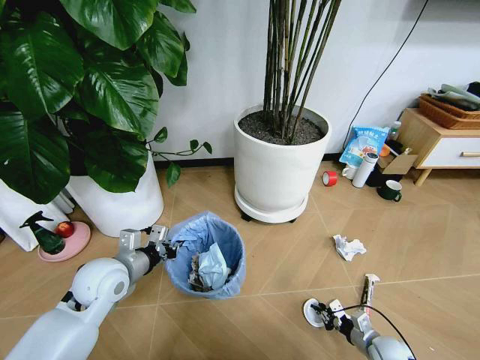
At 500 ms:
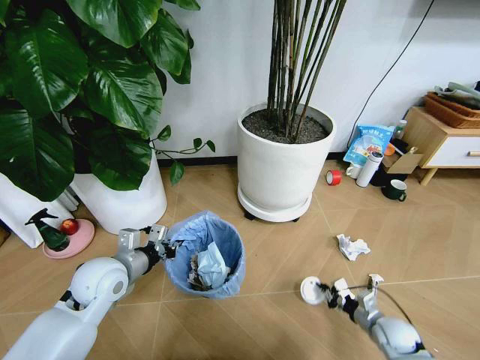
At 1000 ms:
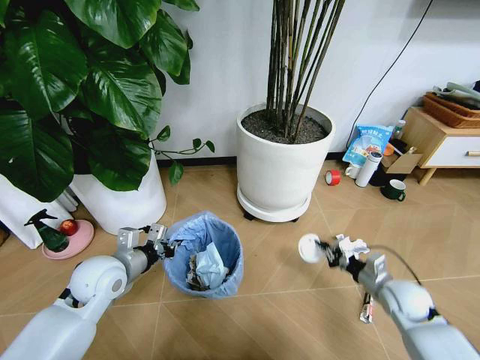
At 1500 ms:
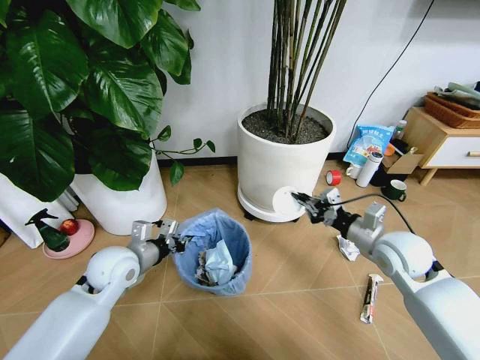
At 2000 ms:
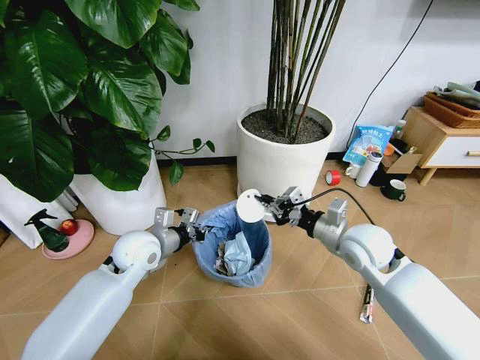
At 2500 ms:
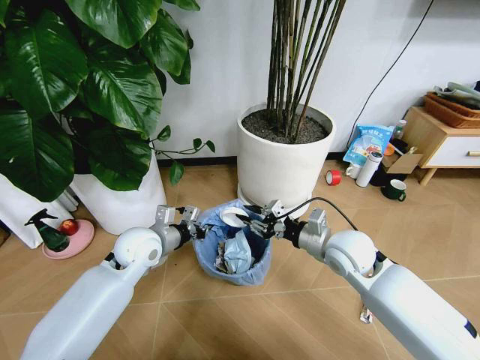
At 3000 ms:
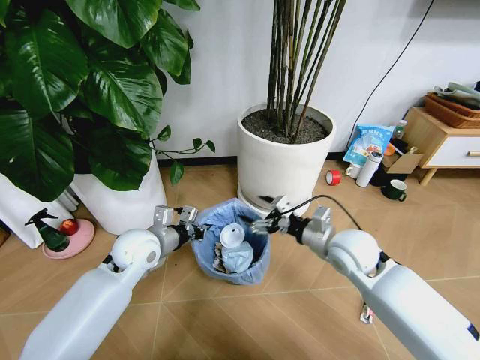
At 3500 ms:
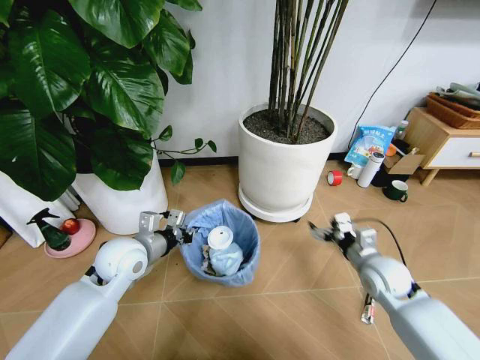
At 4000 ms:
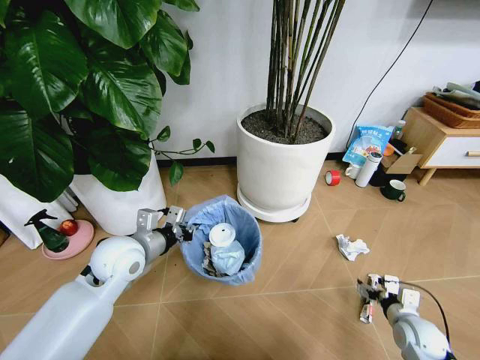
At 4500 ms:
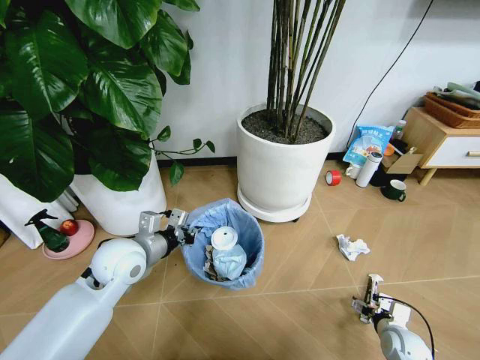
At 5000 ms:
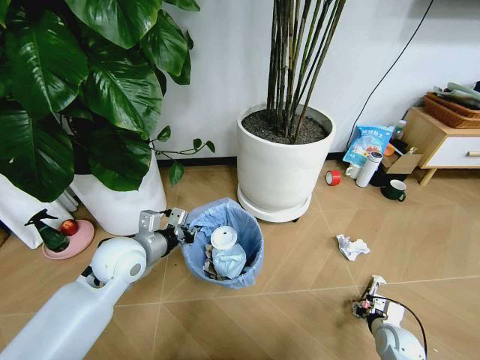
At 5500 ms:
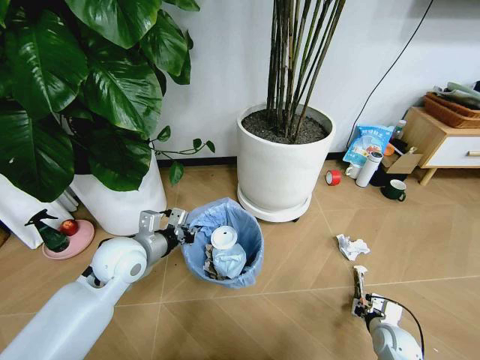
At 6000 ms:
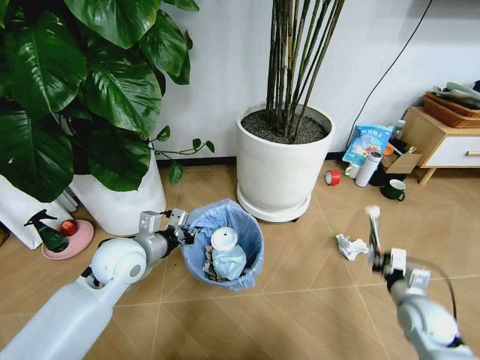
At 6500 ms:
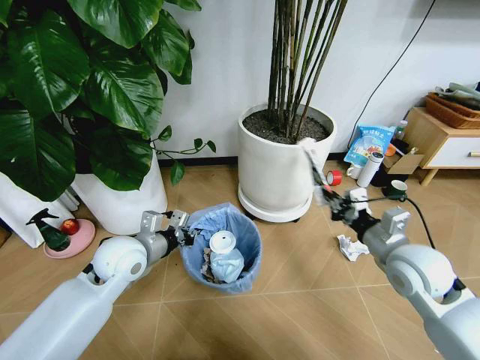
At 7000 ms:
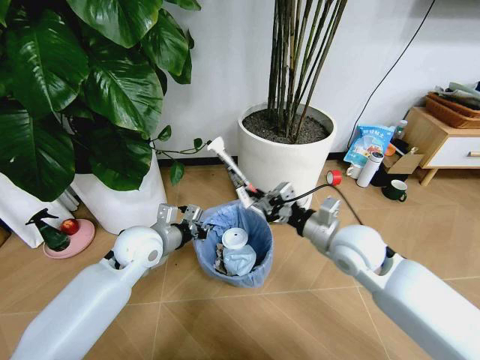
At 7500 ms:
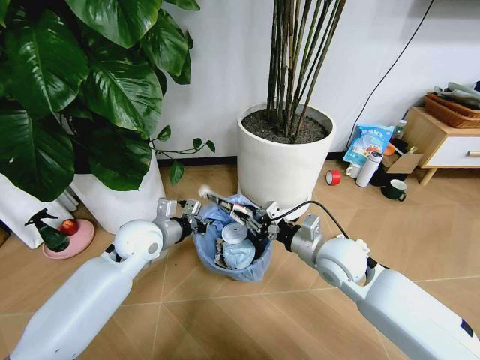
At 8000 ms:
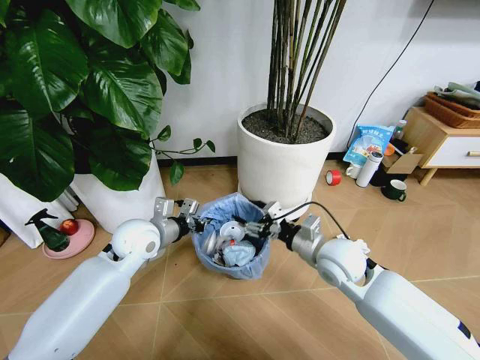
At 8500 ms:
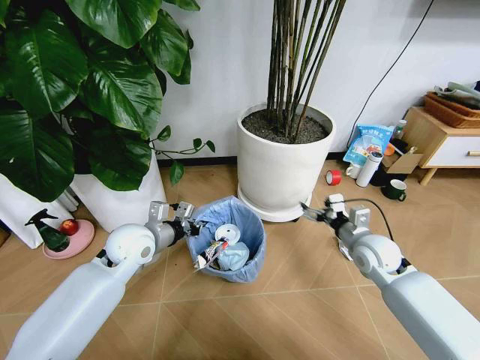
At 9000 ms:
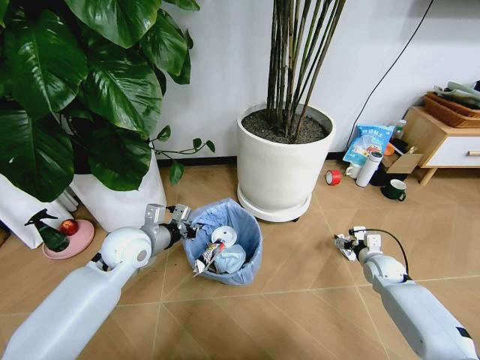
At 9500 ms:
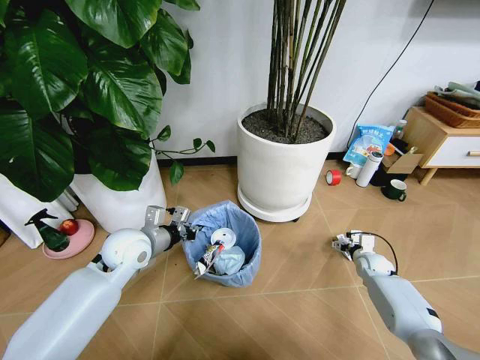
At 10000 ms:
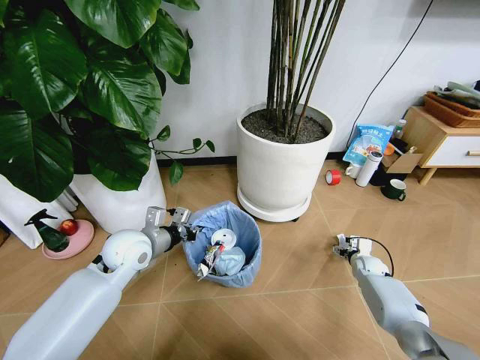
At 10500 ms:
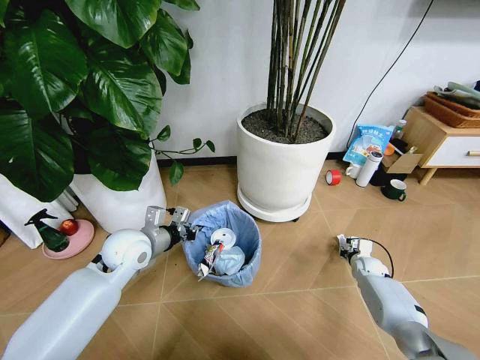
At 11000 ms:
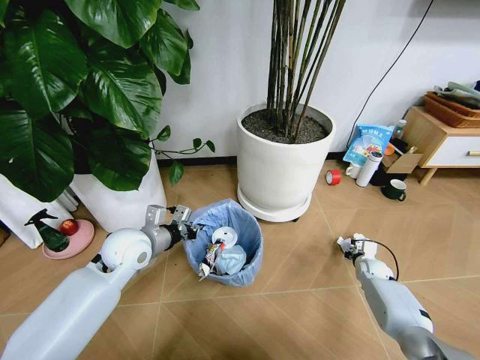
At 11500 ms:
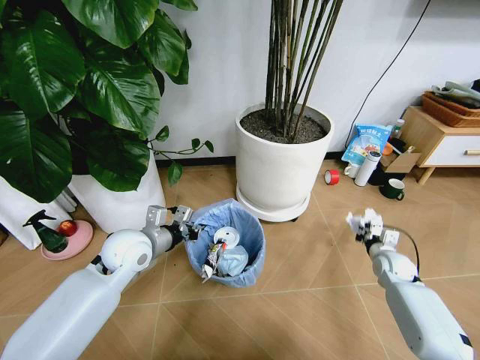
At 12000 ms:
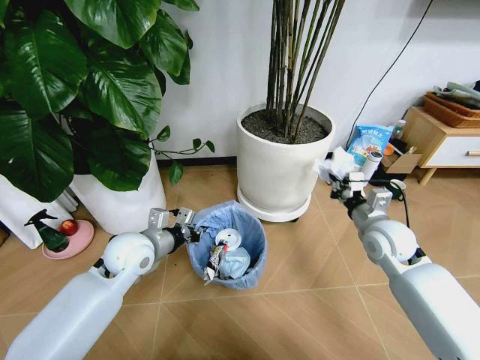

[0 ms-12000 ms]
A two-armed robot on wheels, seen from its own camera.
Task of the whole recording: Pick up the trash bin and place the garbage on the floor into it.
0 ms to 2000 ms: The right gripper goes roughly 40 cm upward, forward and to the left, while the left gripper heads forward and to the right, covering some 10 cm.
2000 ms to 4000 ms: The right gripper goes approximately 30 cm downward, to the right and backward, and opens.
4000 ms to 6000 ms: The right gripper is displaced upward by roughly 5 cm, and closes.
6000 ms to 8000 ms: The left gripper moves forward, approximately 5 cm, while the right gripper is displaced to the left, upward and forward by about 25 cm, and opens up.
8000 ms to 10000 ms: The right gripper travels downward and to the right by roughly 35 cm.
10000 ms to 12000 ms: The right gripper travels upward by roughly 25 cm, and closes its fingers.

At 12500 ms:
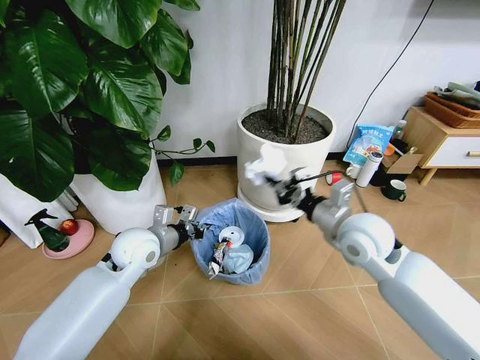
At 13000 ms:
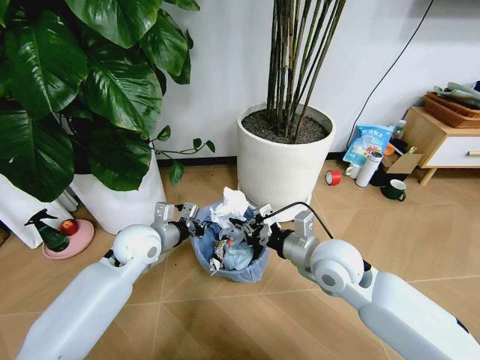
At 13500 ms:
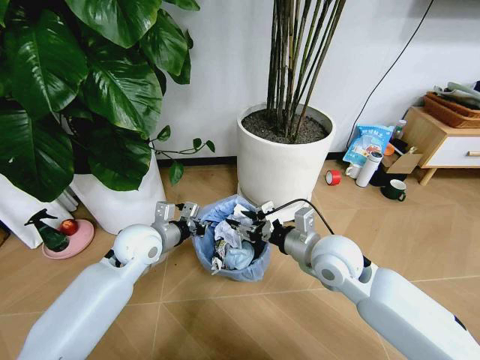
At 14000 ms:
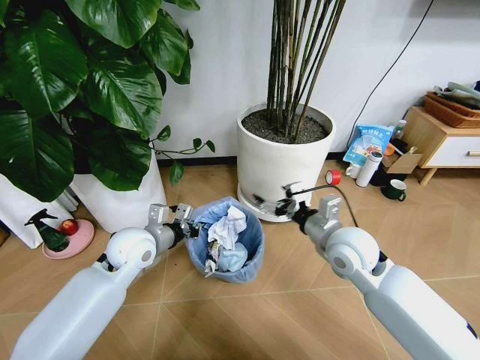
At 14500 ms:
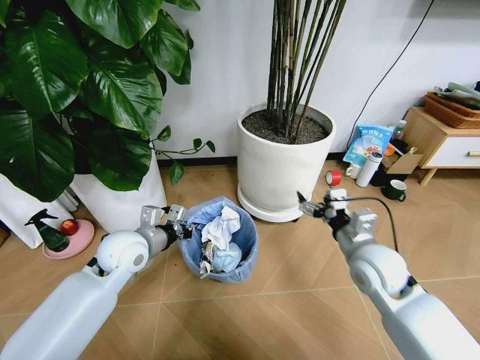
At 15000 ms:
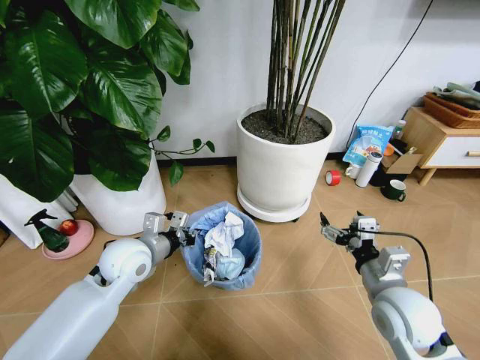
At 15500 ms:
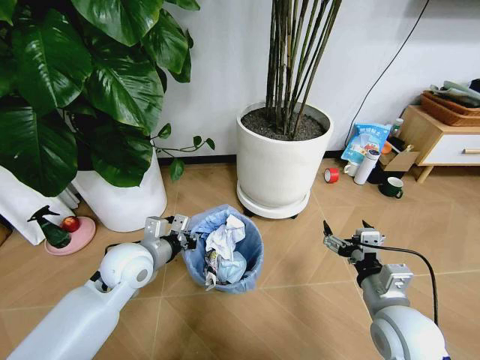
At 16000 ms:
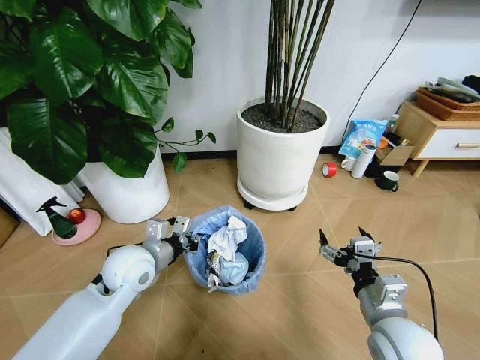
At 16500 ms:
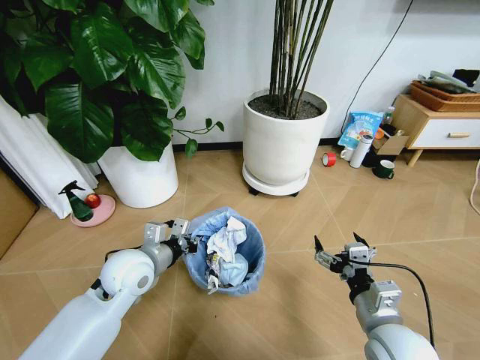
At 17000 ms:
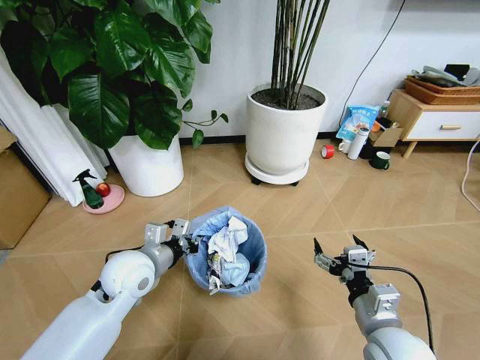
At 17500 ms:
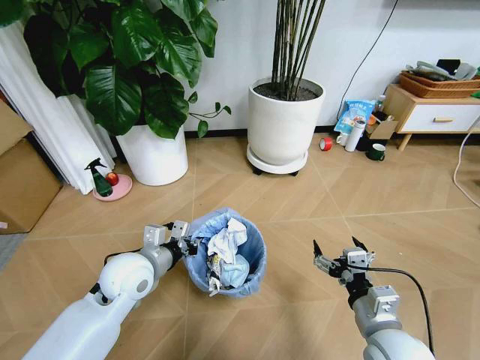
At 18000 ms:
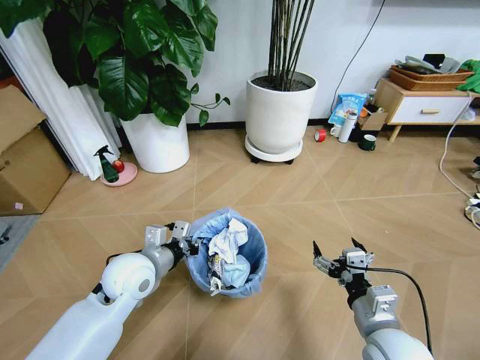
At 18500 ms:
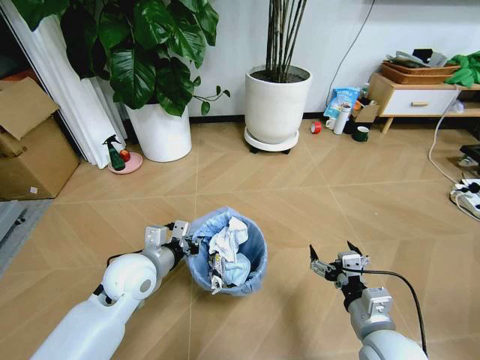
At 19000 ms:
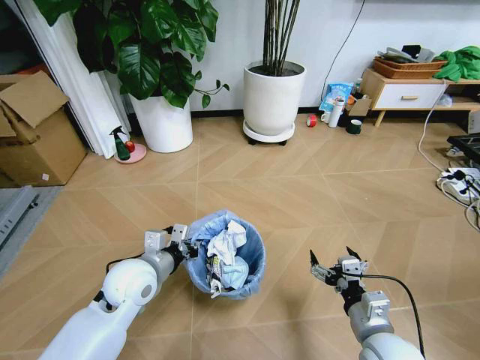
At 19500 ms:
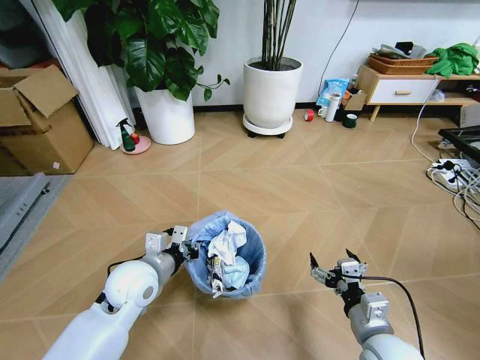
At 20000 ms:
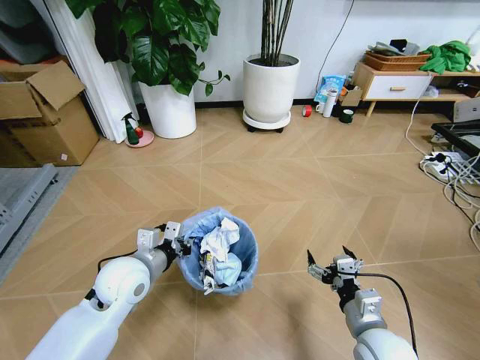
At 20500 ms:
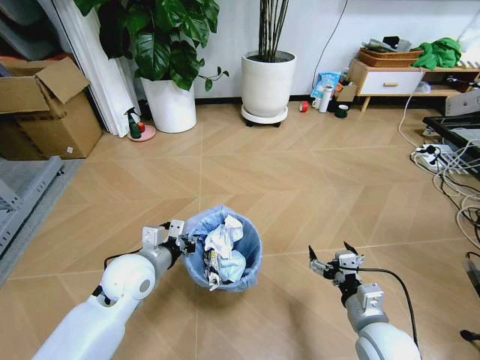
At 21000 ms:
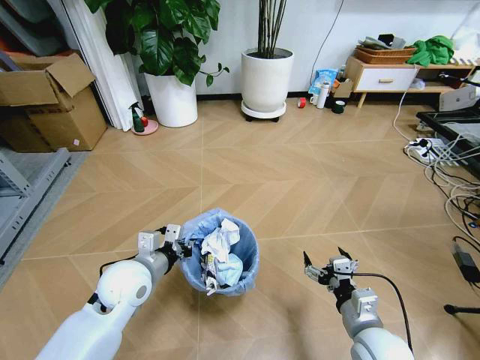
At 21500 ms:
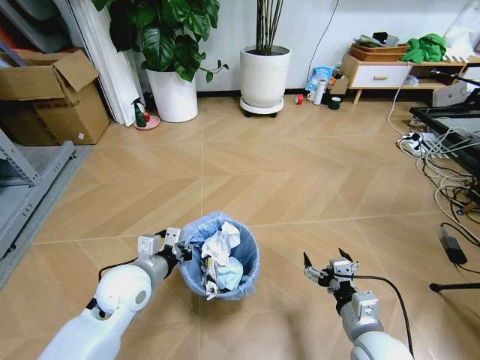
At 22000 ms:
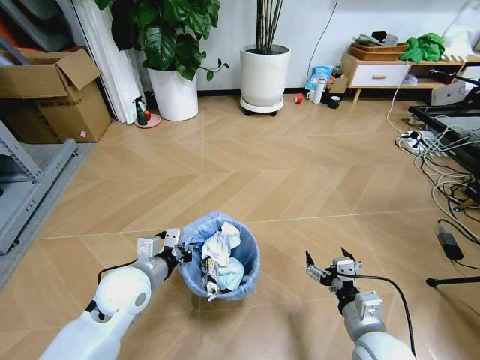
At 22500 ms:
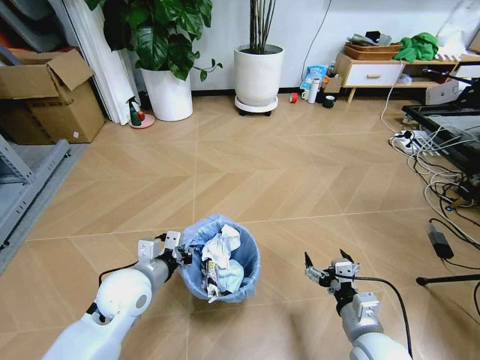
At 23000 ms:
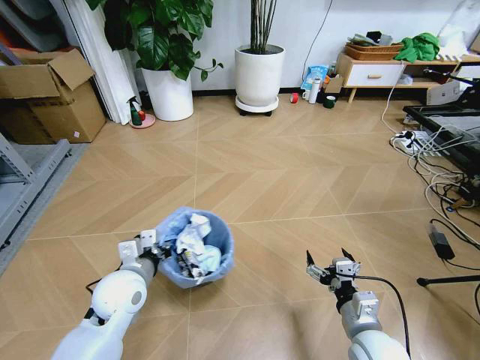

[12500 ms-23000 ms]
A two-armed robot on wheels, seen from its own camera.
Task of the whole recording: Pick up the trash bin and place the garbage on the floor into it.
12500 ms to 14500 ms: The right gripper is displaced downward by some 5 cm, and opens up.
14500 ms to 16500 ms: The right gripper is displaced backward by about 15 cm.

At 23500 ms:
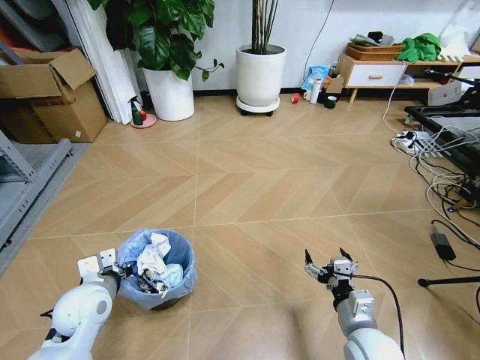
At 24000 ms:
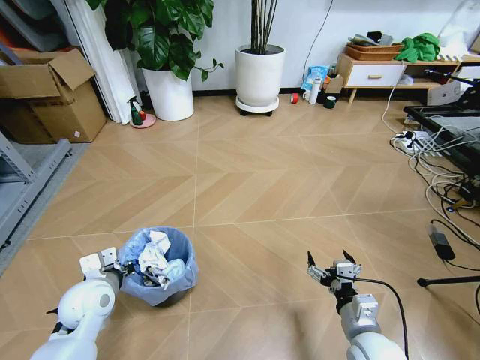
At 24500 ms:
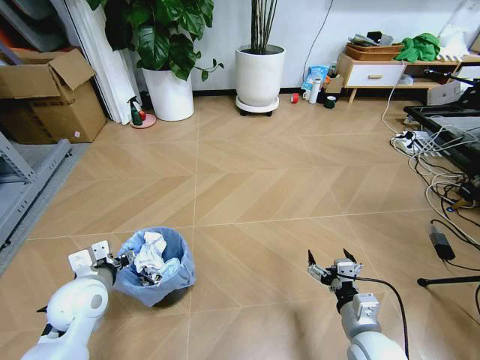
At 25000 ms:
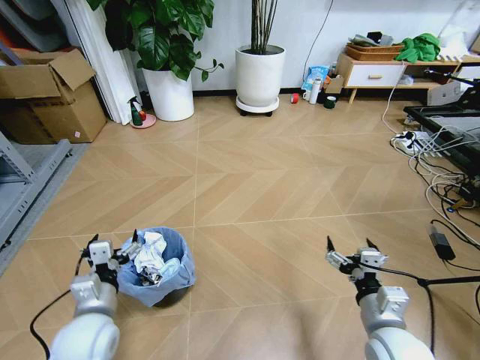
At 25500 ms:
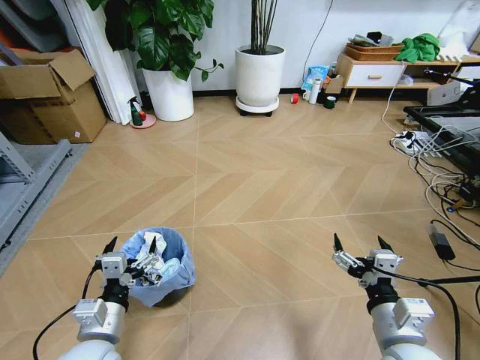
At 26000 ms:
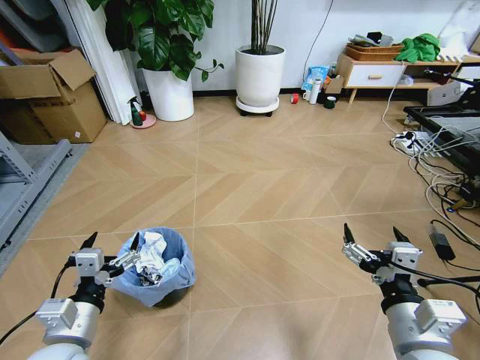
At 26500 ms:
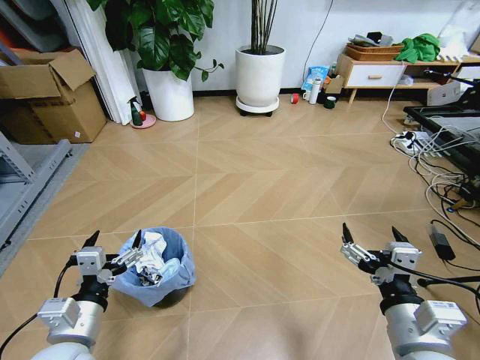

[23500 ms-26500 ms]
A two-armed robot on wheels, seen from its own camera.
Task of the whole recording: Pick up the trash bin and place the garbage on the floor into it.
23500 ms to 25000 ms: The right gripper heads upward, covering some 5 cm. Meanwhile the left gripper is displaced backward by roughly 5 cm, and opens its fingers.
25000 ms to 26500 ms: The right gripper moves upward and backward, some 10 cm. Meanwhile the left gripper is displaced backward by roughly 5 cm.
